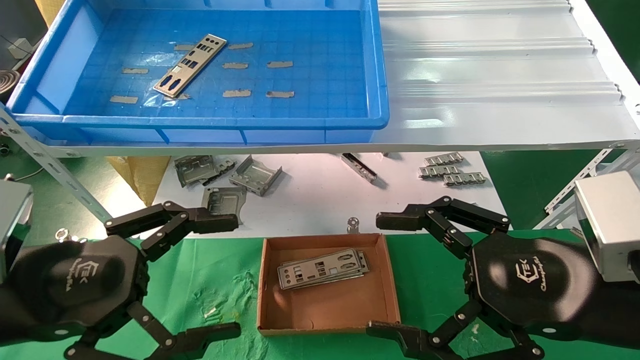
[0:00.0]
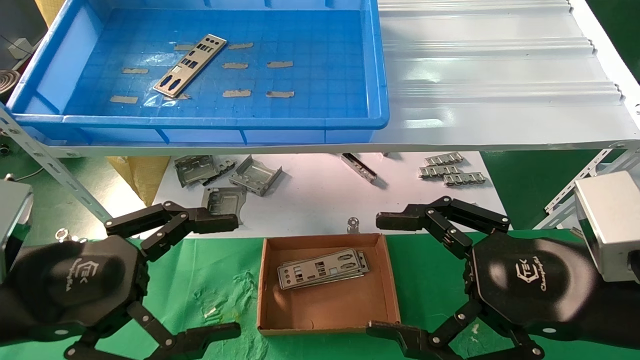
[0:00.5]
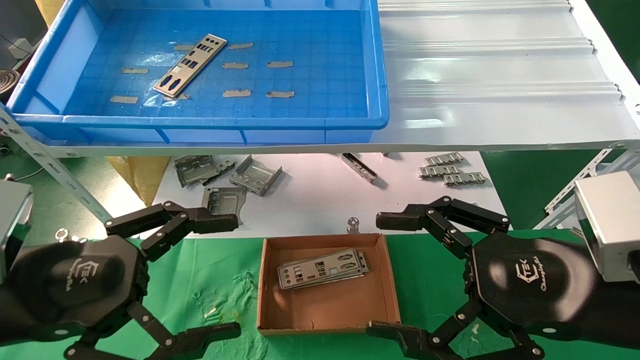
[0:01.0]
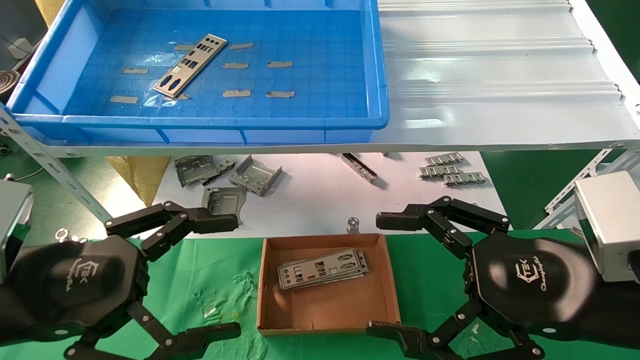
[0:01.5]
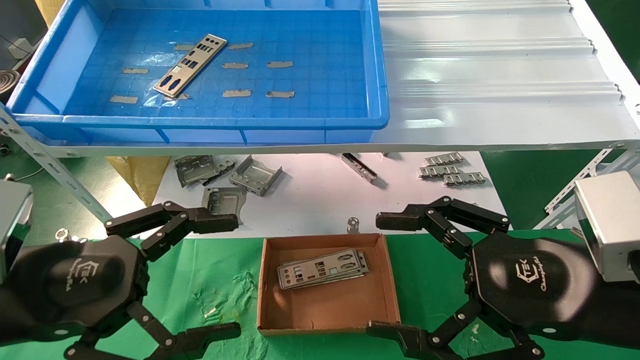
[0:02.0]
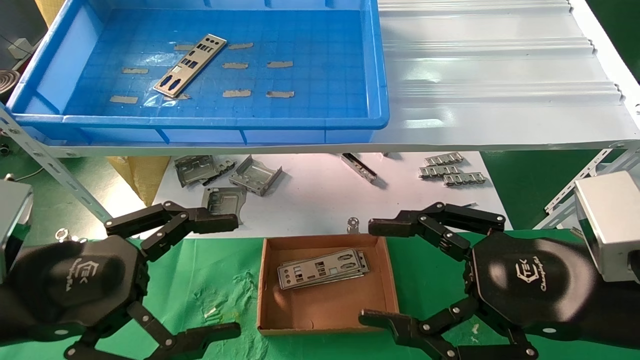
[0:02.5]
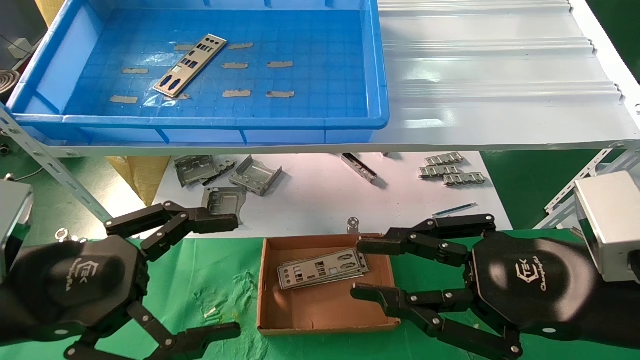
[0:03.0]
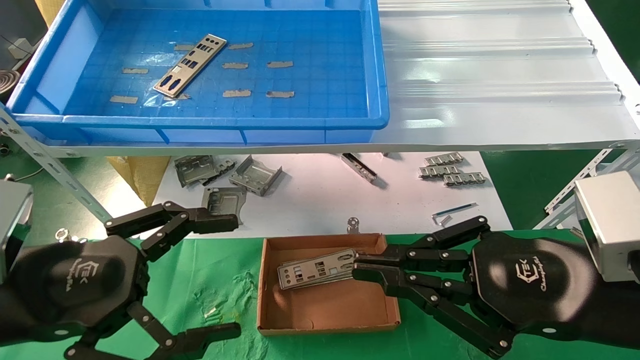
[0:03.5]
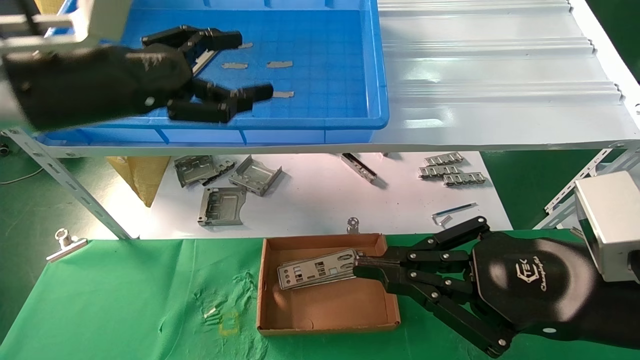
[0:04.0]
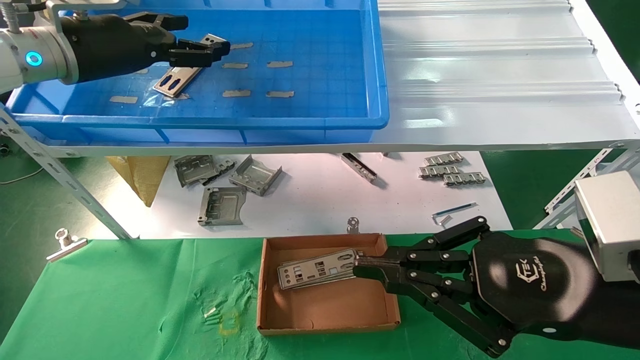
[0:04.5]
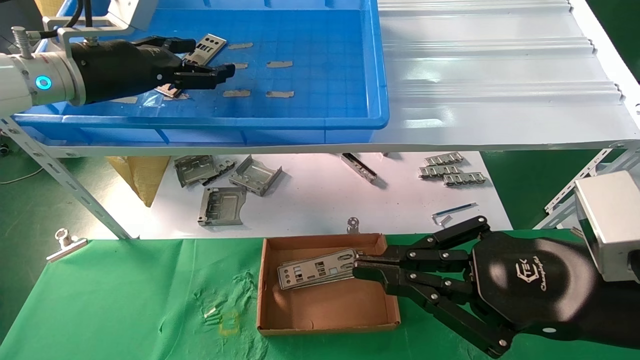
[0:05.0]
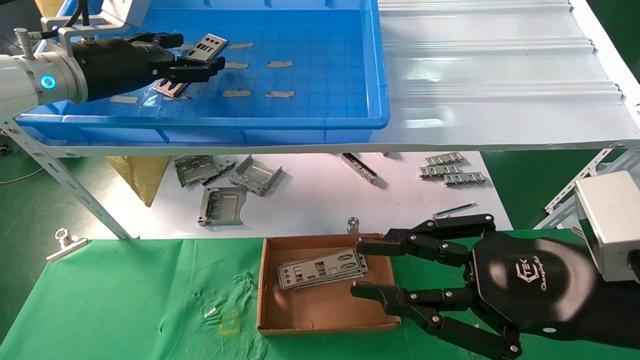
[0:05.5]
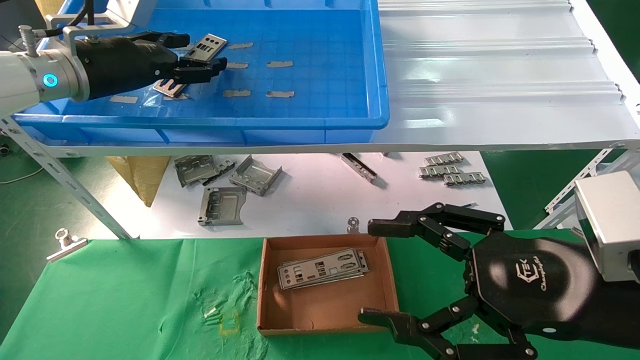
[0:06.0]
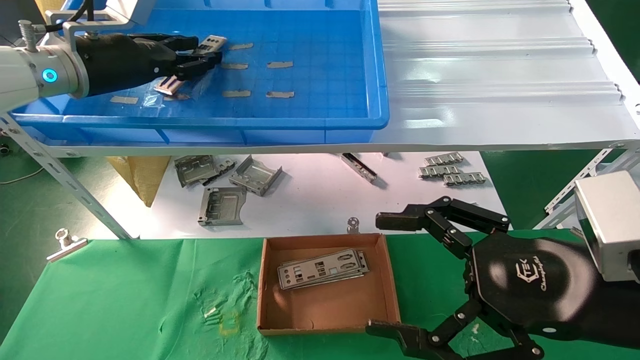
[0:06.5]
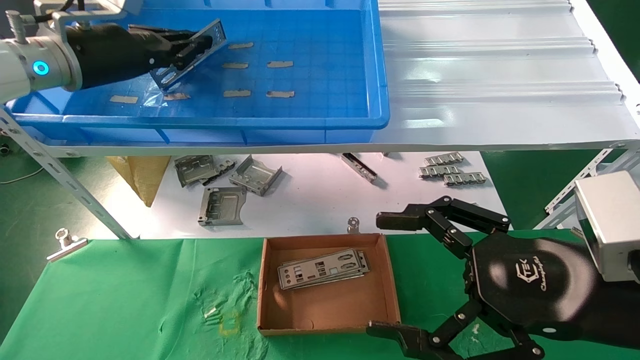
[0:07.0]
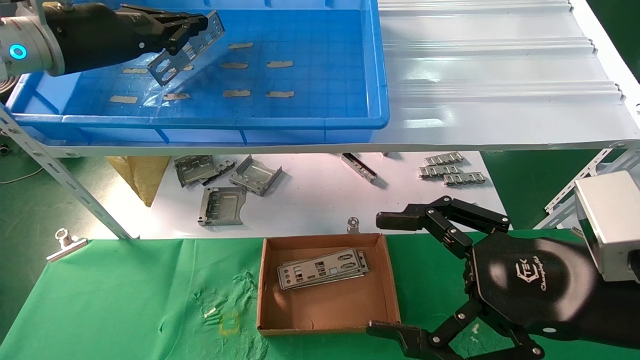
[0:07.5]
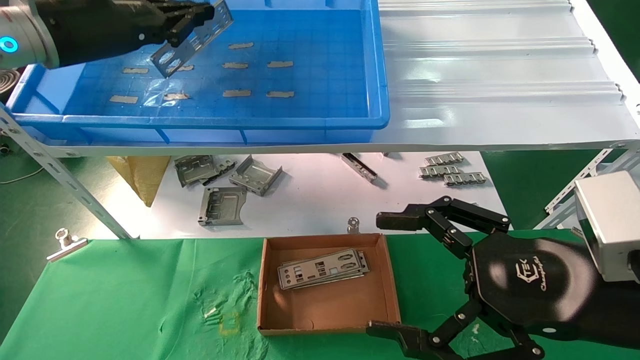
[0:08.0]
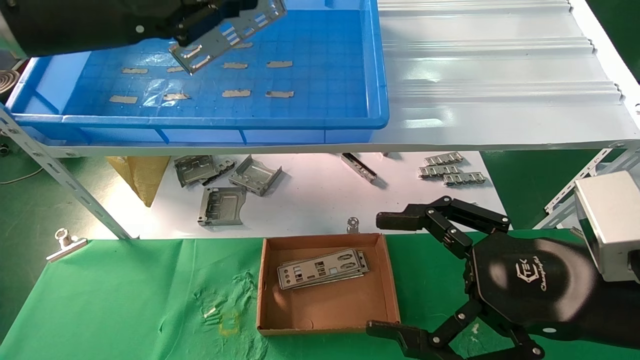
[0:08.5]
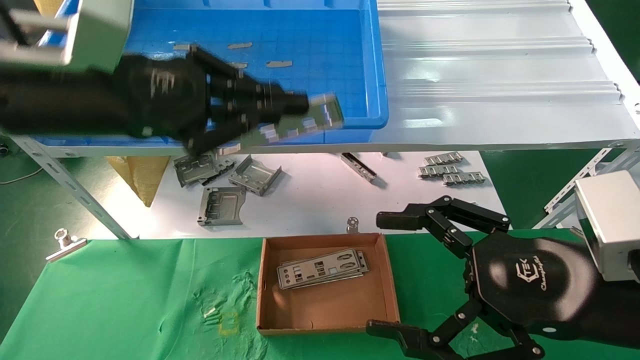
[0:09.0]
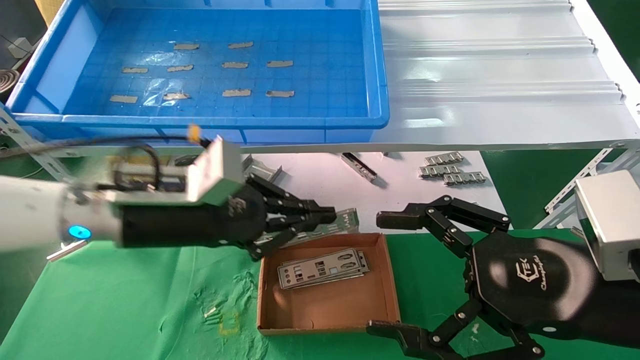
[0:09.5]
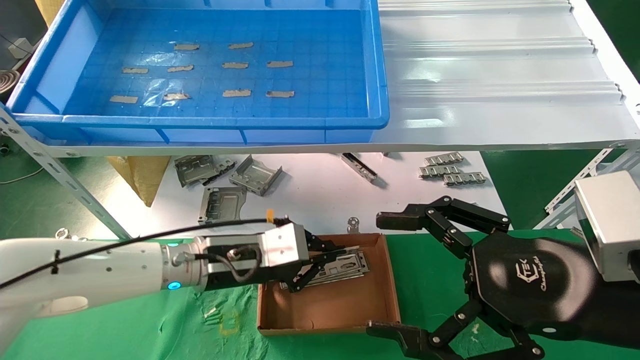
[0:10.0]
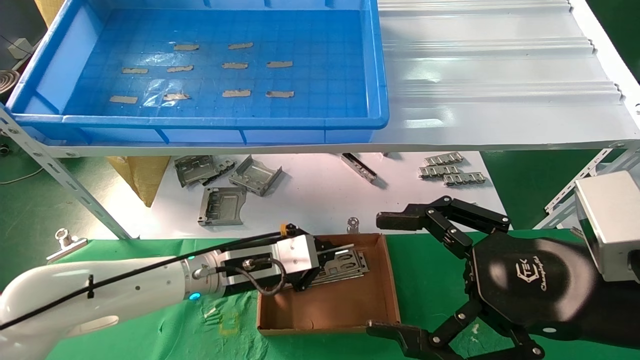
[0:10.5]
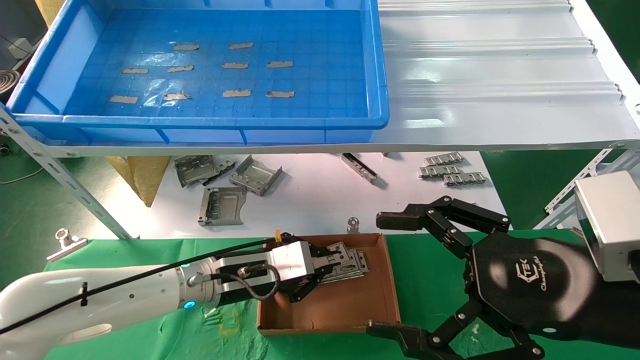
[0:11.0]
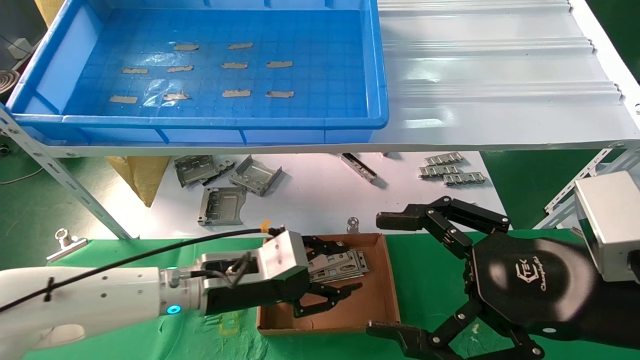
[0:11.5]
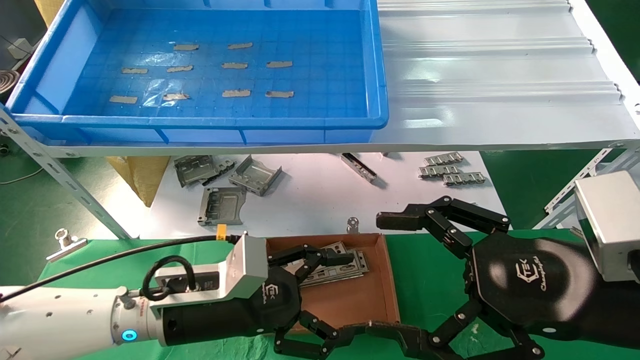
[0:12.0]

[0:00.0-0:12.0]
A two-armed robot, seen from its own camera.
Task of the whole recording: pick up the parts on the tray and put them in the cardboard box.
Step, 0:04.0 to 0:07.0: Pick up the IO bracket from the container box.
Step, 0:07.5 to 0:11.0: Place the IO bracket into the ingredient slot.
0:00.0 to 0:02.0: Neither gripper changes place.
0:02.0 to 0:04.0: The left gripper goes roughly 20 cm upward and forward. Meanwhile the right gripper closes its fingers.
0:04.0 to 0:06.0: The left gripper shifts about 10 cm forward; the right gripper opens its fingers.
0:06.0 to 0:08.0: The left gripper shifts by some 5 cm, and closes its fingers, while the right gripper opens up.
0:08.0 to 0:10.0: The left gripper shifts some 30 cm downward and to the right.
0:10.0 to 0:12.0: The left gripper is displaced backward by about 10 cm, and opens.

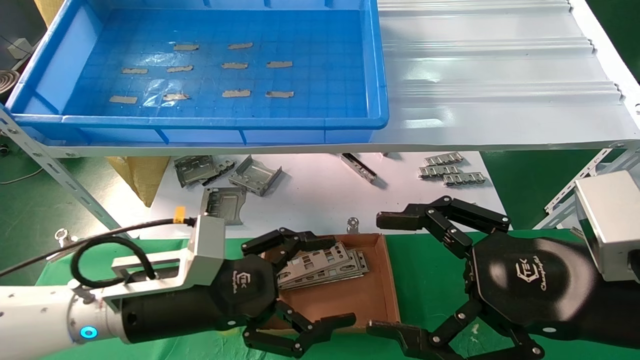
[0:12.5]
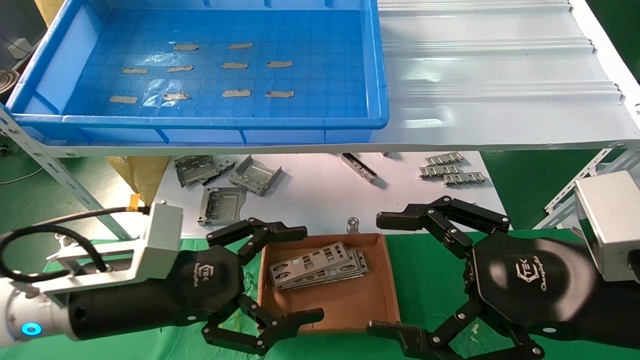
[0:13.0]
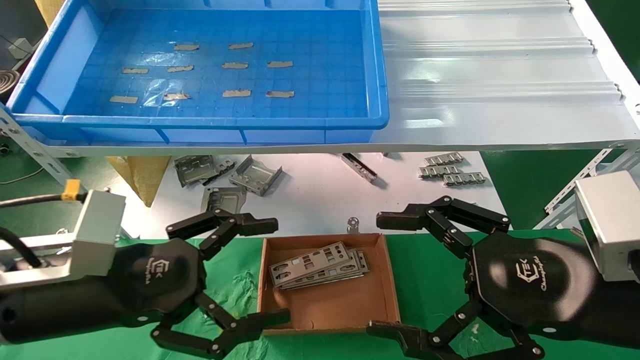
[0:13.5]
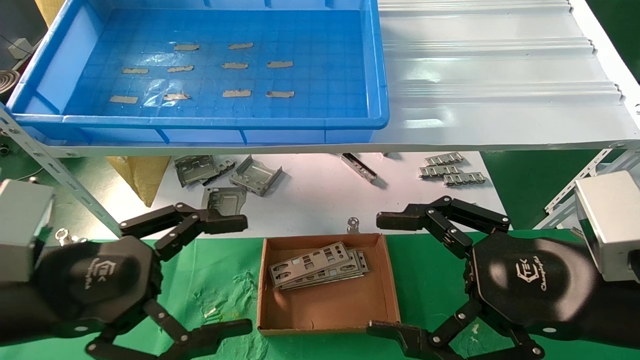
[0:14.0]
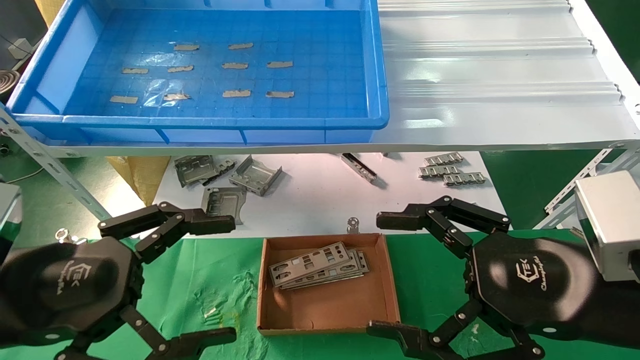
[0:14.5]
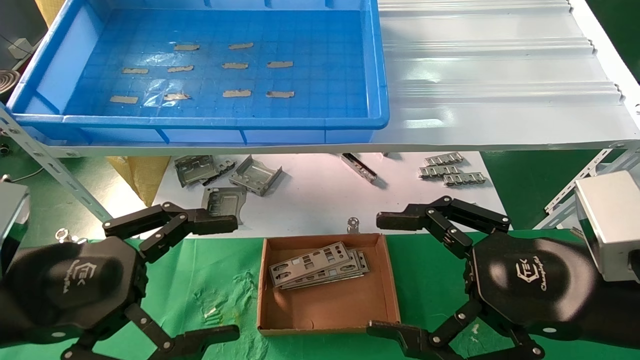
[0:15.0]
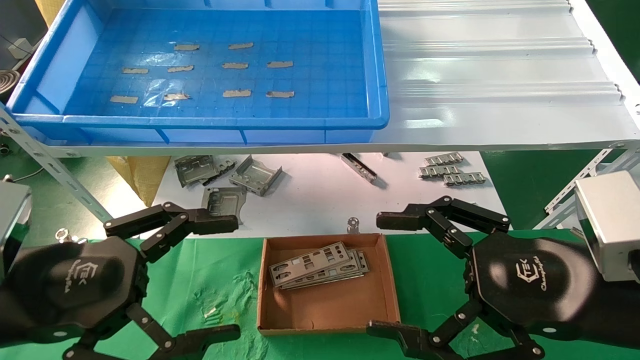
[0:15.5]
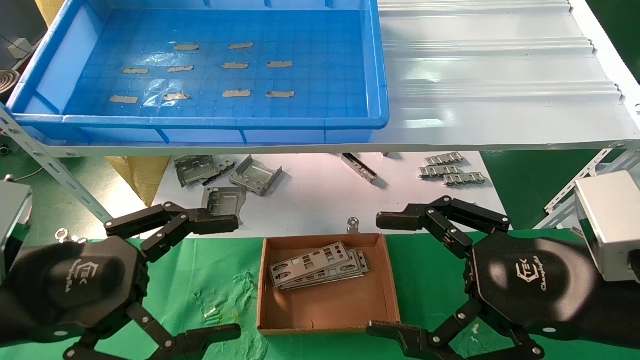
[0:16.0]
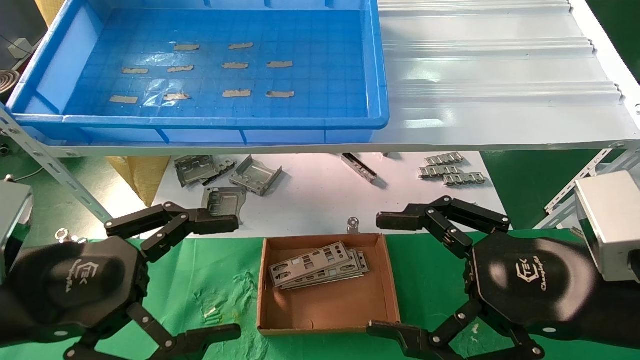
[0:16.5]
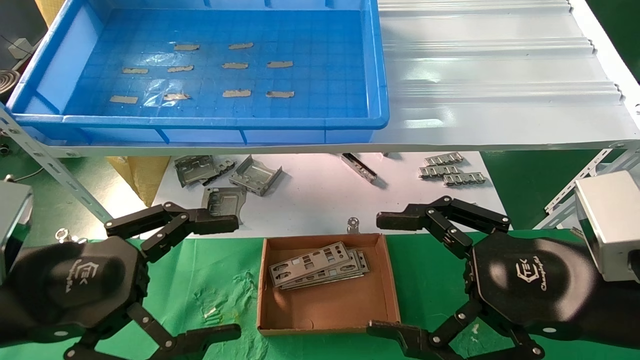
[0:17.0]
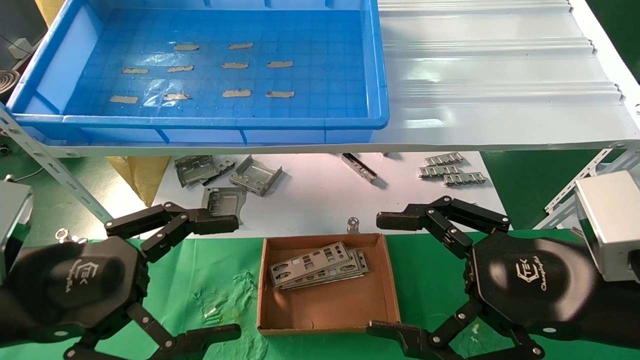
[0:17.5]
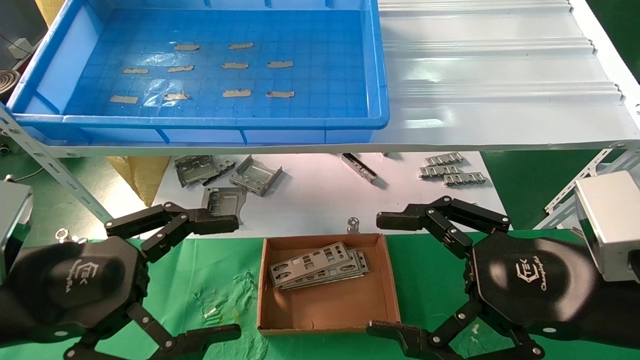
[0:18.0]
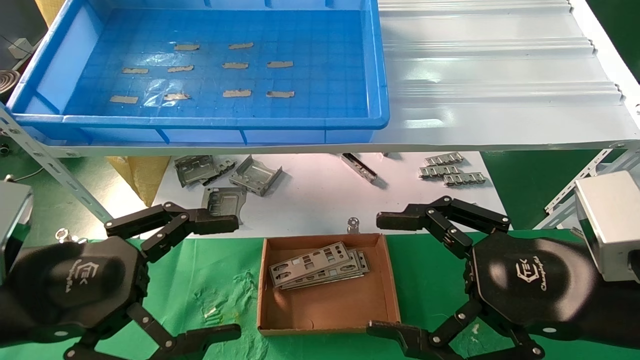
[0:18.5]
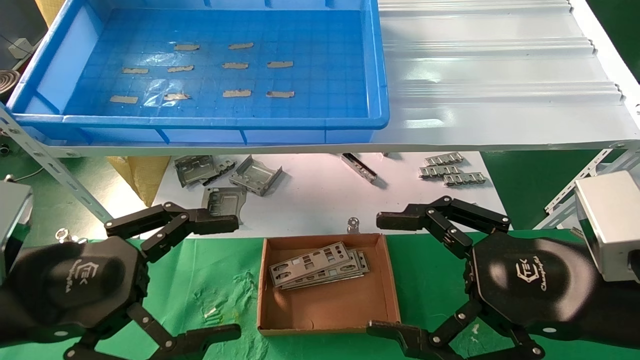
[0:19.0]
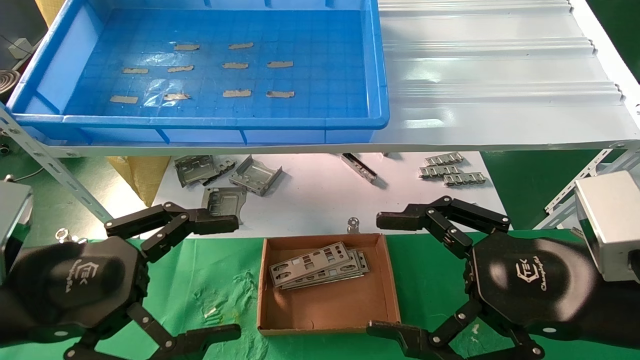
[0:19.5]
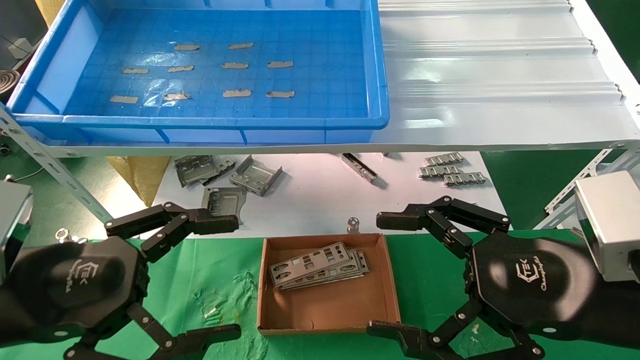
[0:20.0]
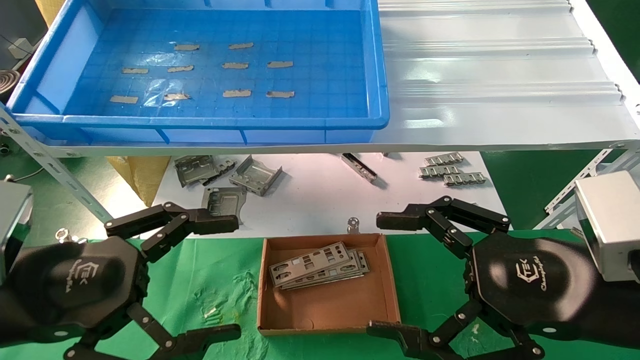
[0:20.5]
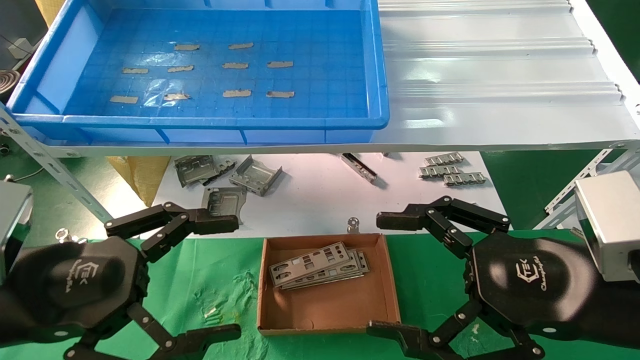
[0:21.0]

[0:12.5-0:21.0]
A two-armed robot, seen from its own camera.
Task of the whole recording: pick up the parts on the tray and put them in the cardboard box.
0:12.5 to 0:14.5: The left gripper is displaced to the left, backward and upward by roughly 15 cm.
0:14.5 to 0:21.0: Neither gripper changes place.
